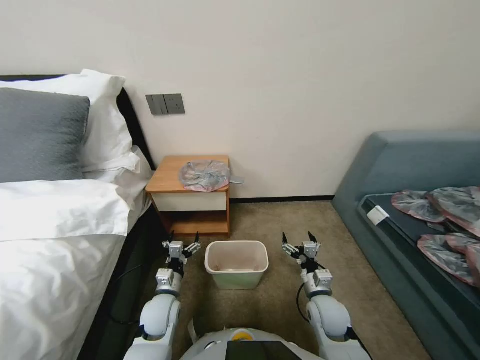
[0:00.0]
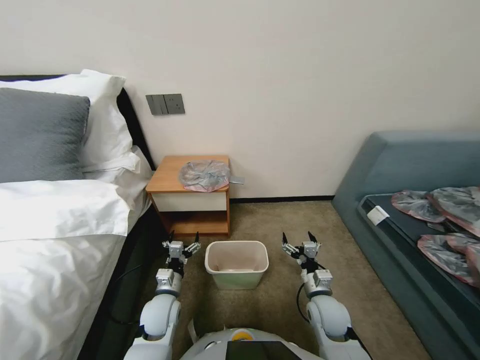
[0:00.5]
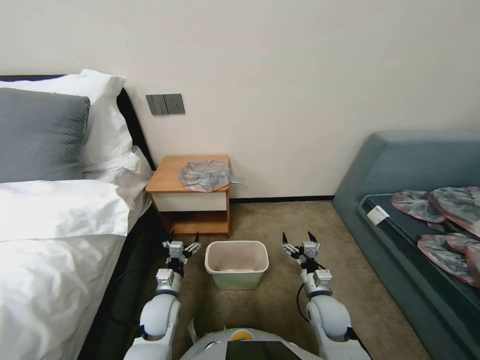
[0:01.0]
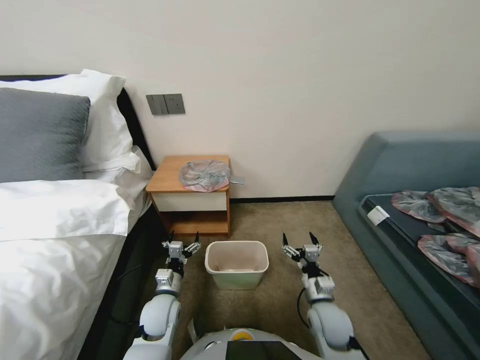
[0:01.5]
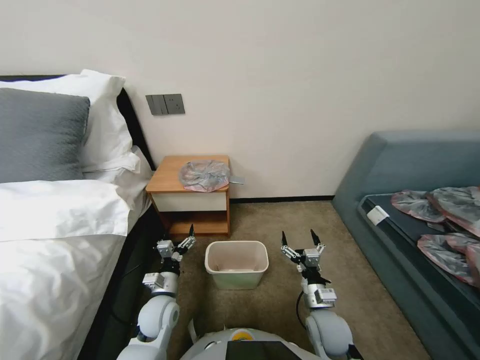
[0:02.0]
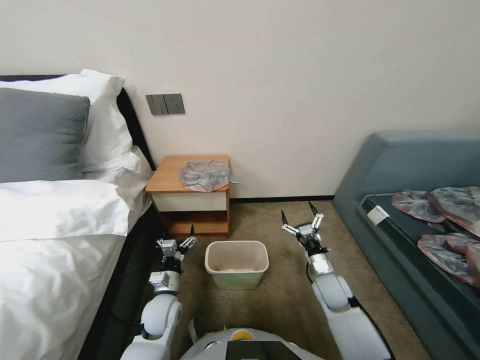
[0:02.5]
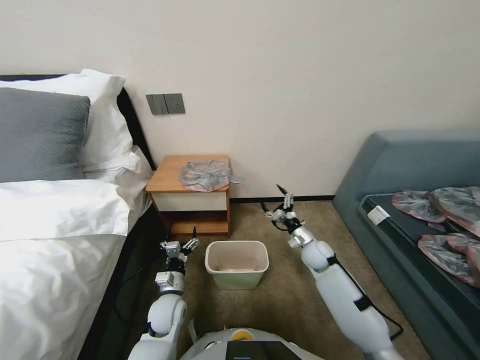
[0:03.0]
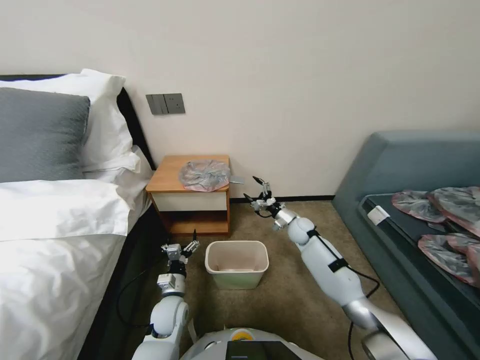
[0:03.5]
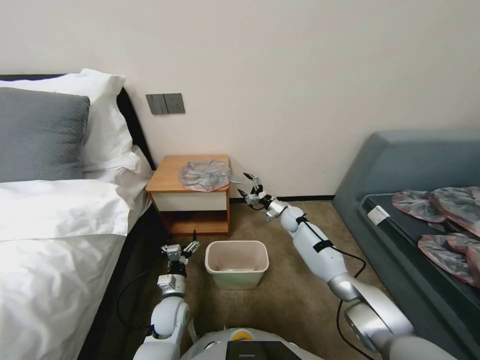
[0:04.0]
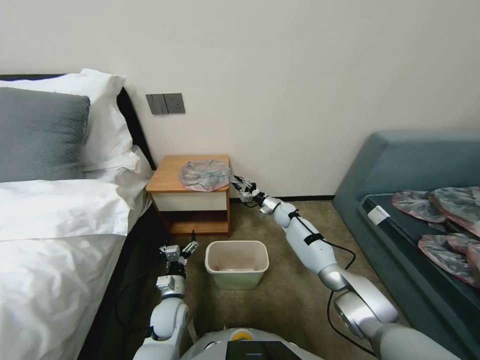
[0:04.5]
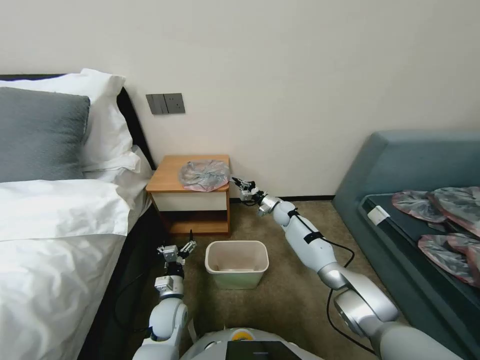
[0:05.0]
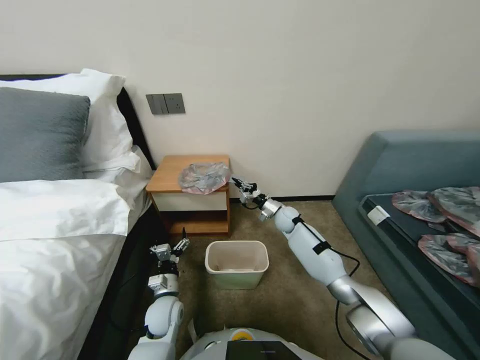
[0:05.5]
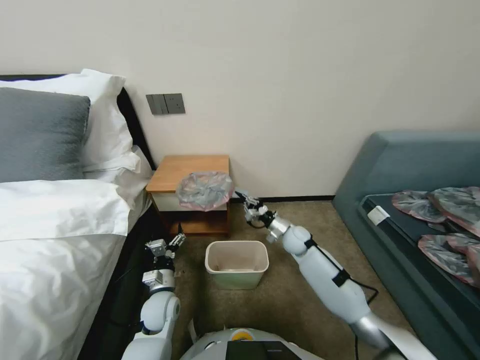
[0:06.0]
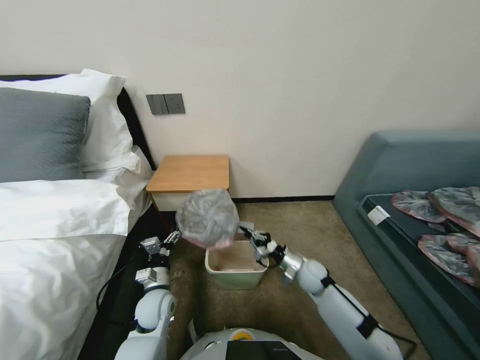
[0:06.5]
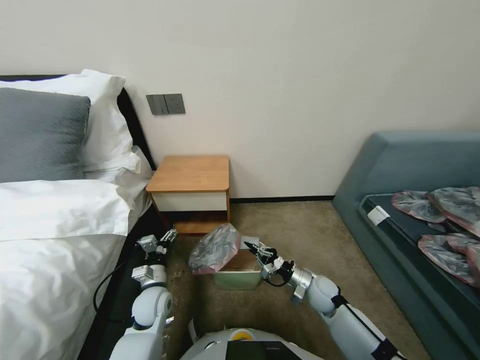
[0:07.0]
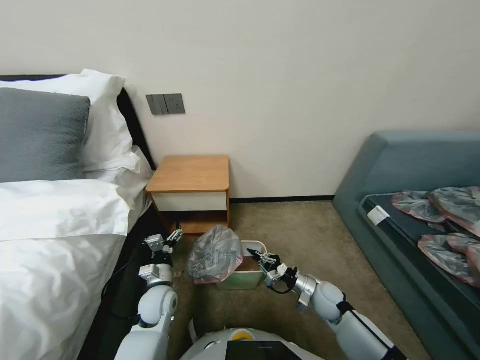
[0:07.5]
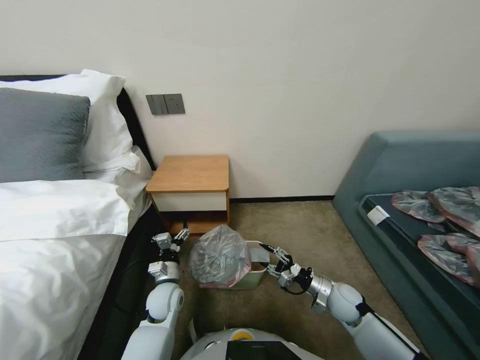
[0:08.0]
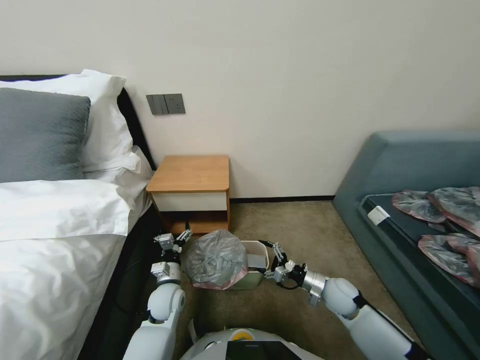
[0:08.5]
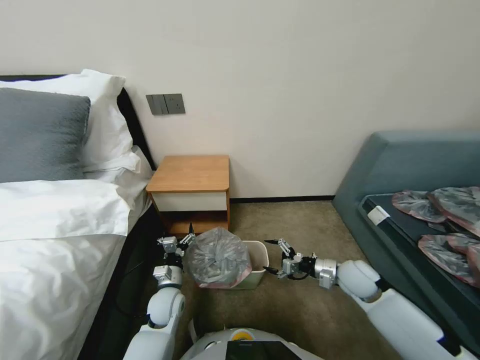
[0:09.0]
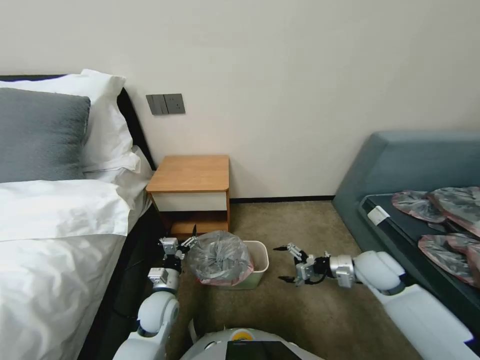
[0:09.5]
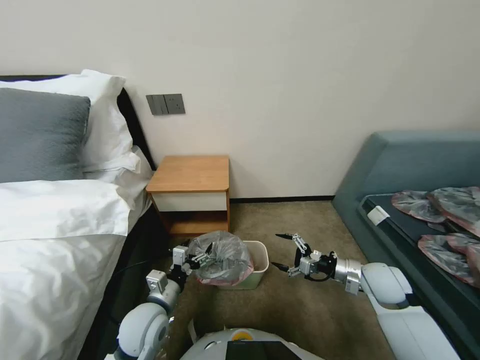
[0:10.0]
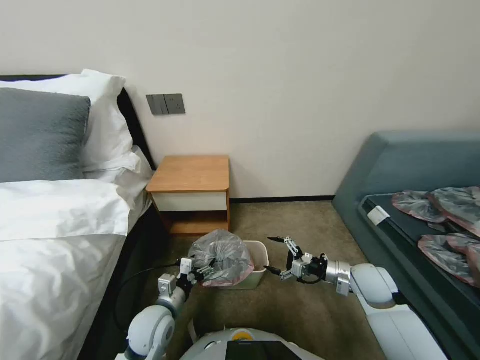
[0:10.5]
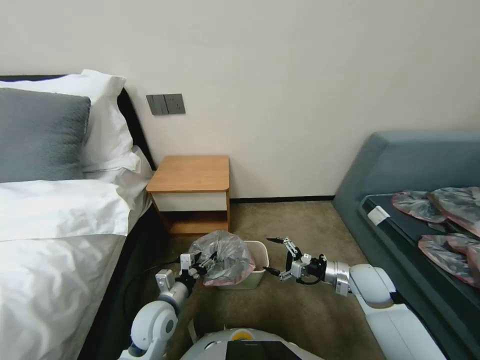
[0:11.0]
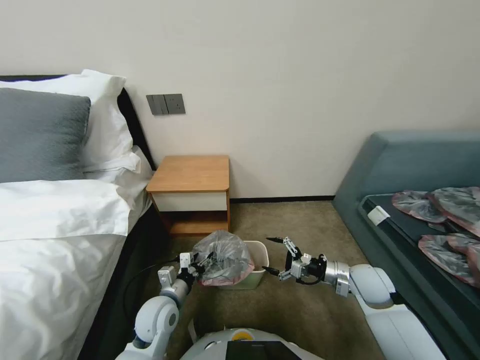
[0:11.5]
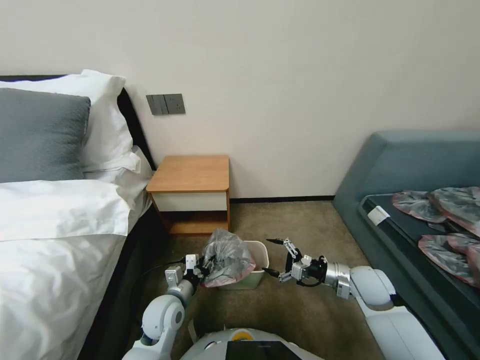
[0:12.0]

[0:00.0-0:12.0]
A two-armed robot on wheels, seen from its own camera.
Task of the whole recording: Pick up the garbage bag from the table and place it over the trash can.
0:02.0 to 0:04.0: The right gripper heads forward, covering some 35 cm.
0:04.0 to 0:06.0: The right gripper travels backward by about 5 cm, and closes up.
0:06.0 to 0:08.0: The right gripper heads backward and to the right, covering some 25 cm, and opens.
0:08.0 to 0:10.0: The right gripper travels upward and to the right by about 15 cm, and opens its fingers. The left gripper travels upward and backward by some 10 cm.
0:10.0 to 0:12.0: The left gripper changes place by some 5 cm, and closes its fingers.

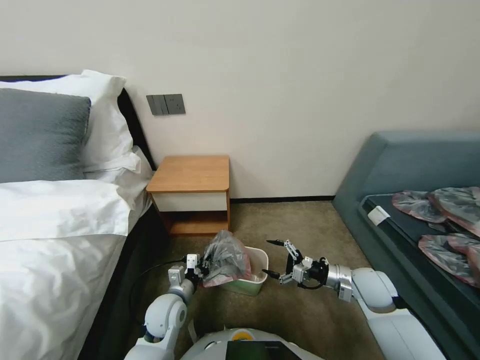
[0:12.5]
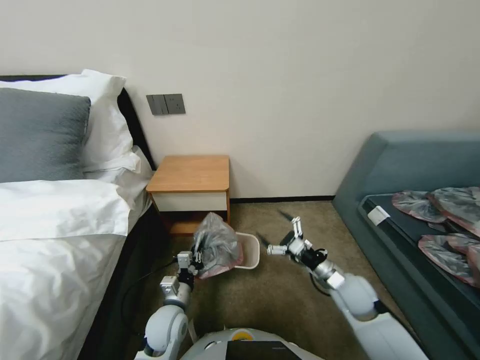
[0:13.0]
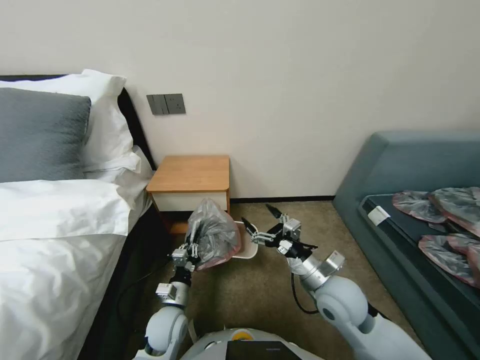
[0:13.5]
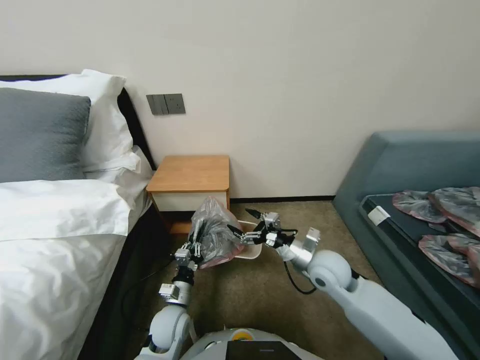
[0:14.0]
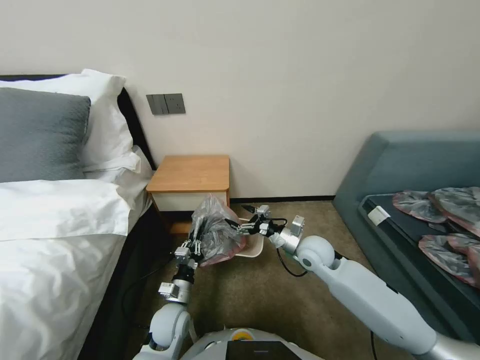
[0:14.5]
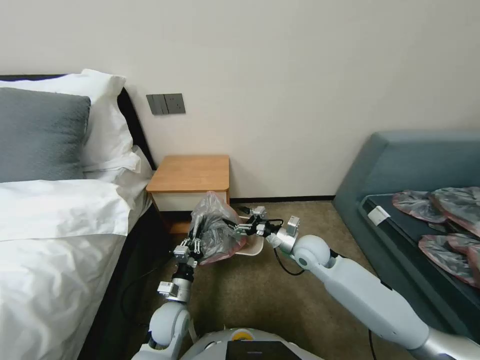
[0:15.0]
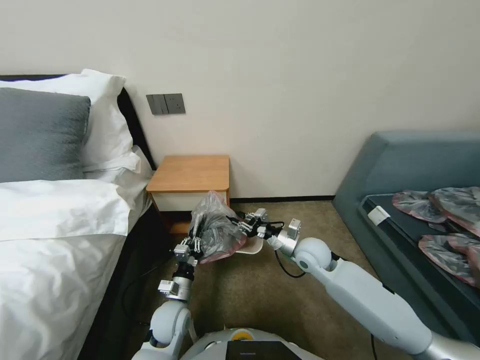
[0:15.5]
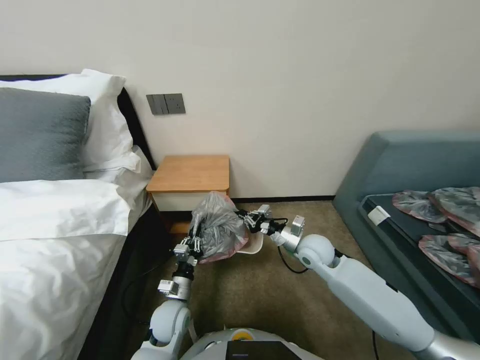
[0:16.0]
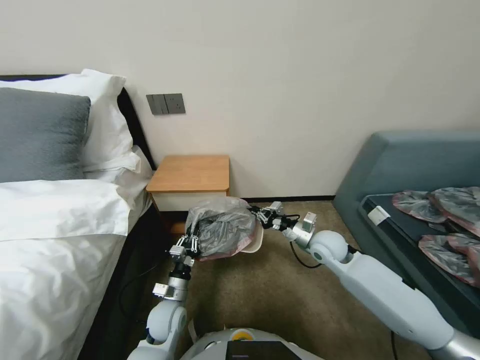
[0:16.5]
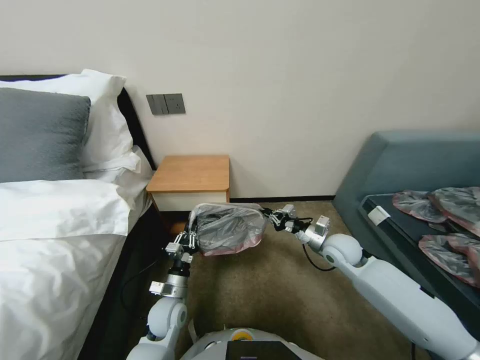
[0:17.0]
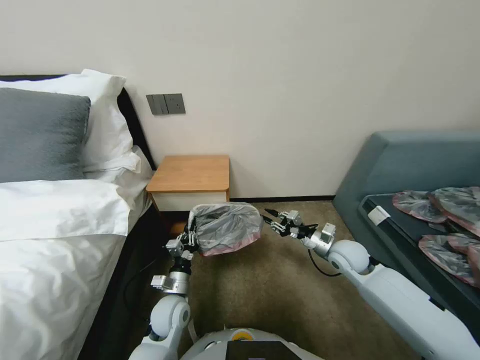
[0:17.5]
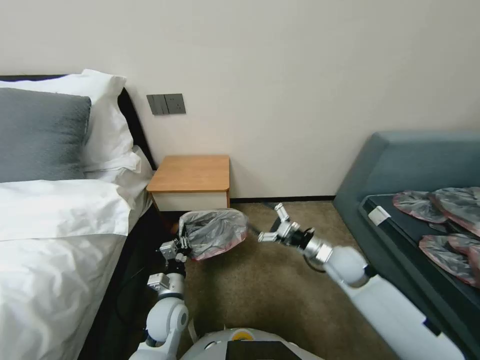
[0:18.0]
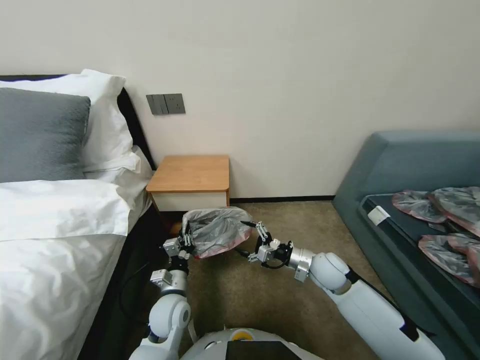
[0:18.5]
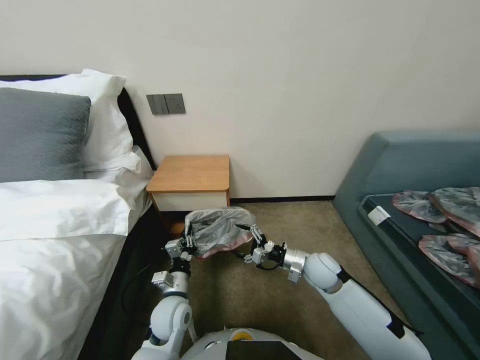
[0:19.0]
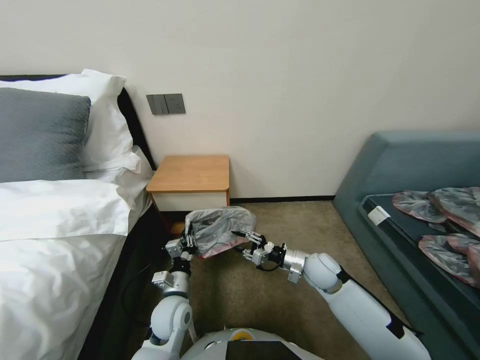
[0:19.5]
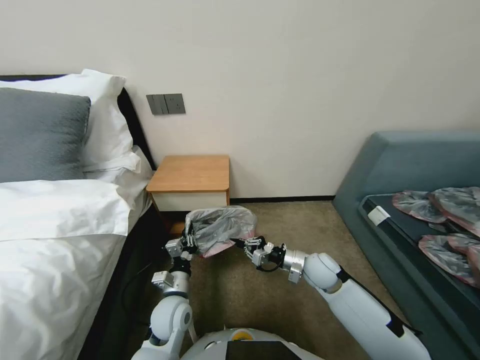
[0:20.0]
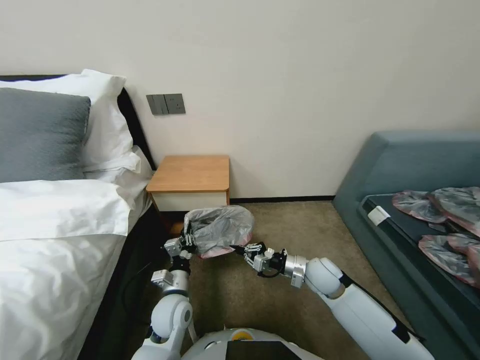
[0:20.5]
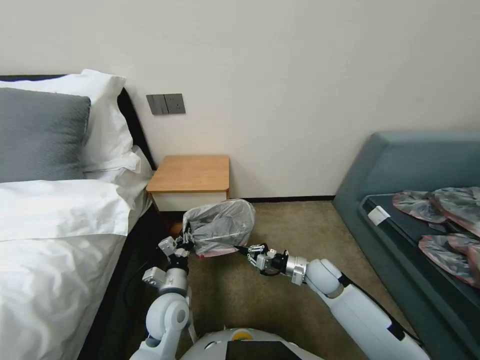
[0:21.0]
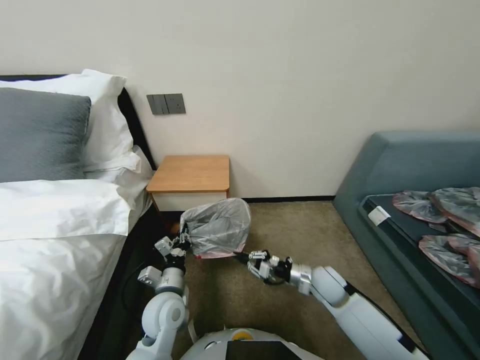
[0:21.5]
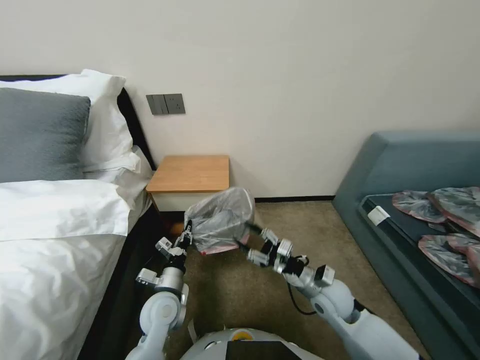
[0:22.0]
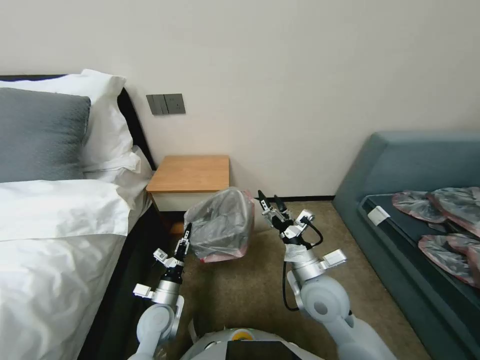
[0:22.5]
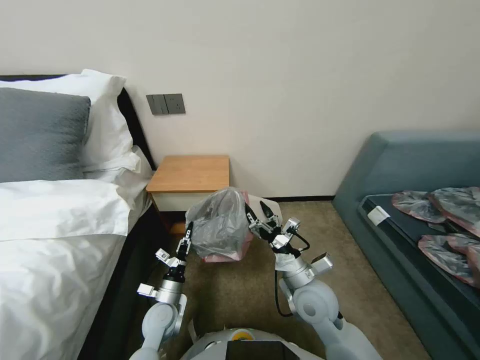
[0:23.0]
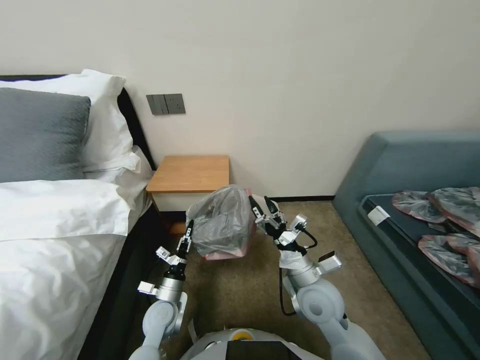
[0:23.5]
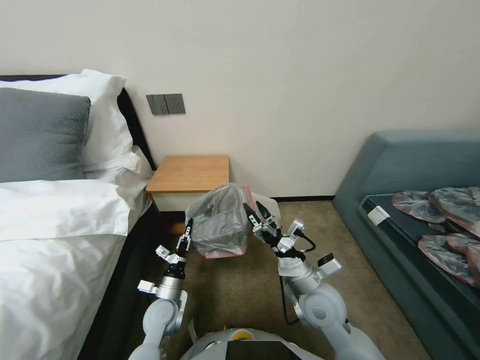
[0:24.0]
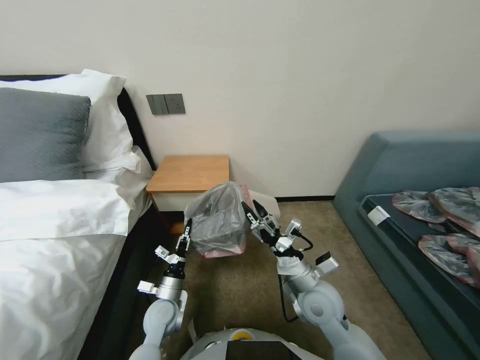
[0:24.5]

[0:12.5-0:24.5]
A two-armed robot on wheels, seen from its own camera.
Task of the whole recording: Pick up the garbage bag from the table and place it over the trash can.
0:12.5 to 0:14.5: The right gripper shifts roughly 15 cm to the left and forward.
0:14.5 to 0:16.5: The right gripper closes up.
0:16.5 to 0:18.5: The right gripper moves backward, about 5 cm, and opens.
0:18.5 to 0:20.5: The right gripper closes up.
0:20.5 to 0:22.5: The right gripper goes about 10 cm upward and backward, and opens its fingers; the left gripper shifts by approximately 5 cm.
0:22.5 to 0:24.5: The grippers stay close to where they were, moving slightly.

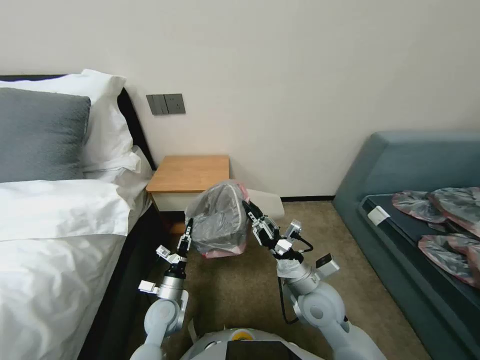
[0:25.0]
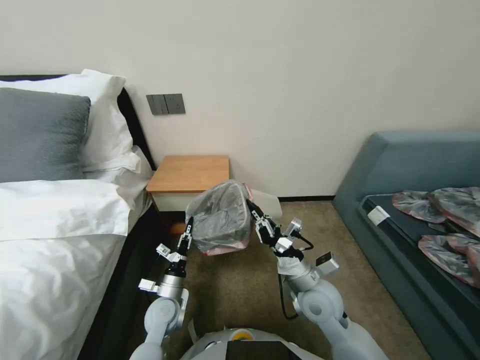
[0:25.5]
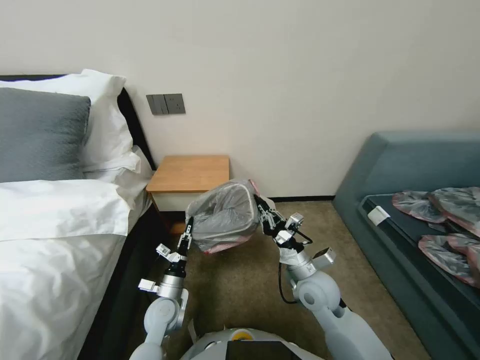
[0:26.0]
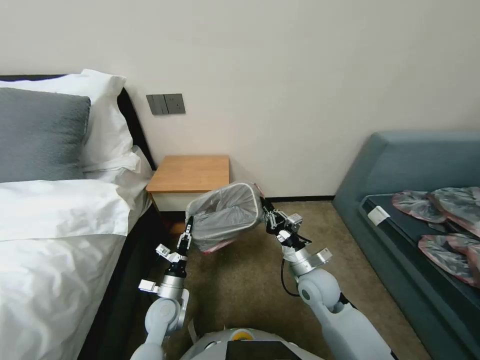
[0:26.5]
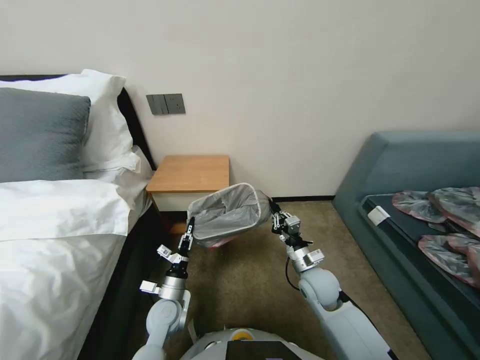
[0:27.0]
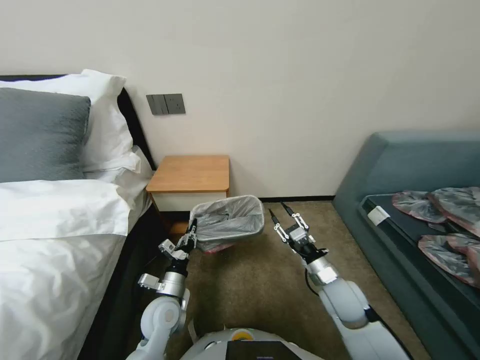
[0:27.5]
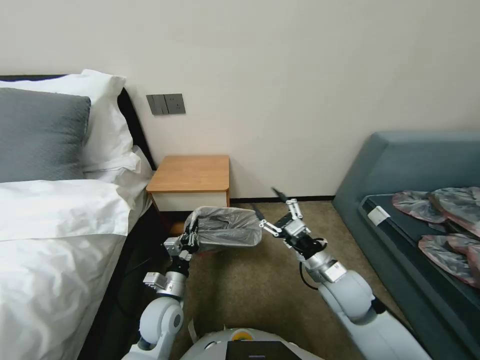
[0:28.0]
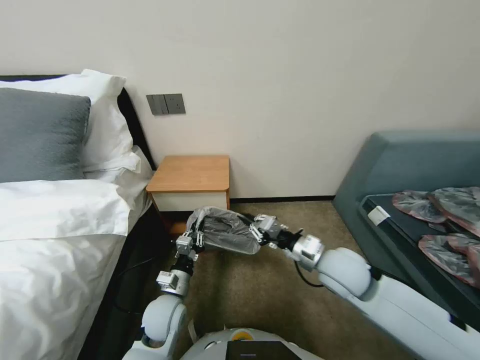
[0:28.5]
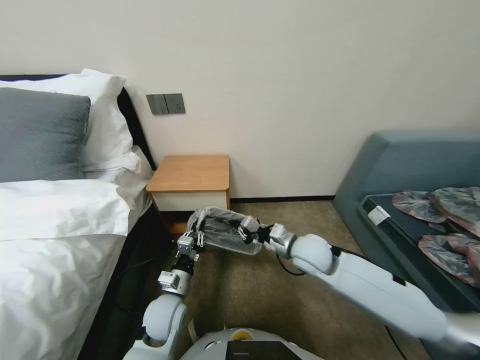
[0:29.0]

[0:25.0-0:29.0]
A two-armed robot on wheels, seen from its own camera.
Task of the whole recording: Pick up the garbage bag from the table and place it over the trash can.
0:25.0 to 0:27.0: The right gripper moves forward and downward, about 5 cm.
0:27.0 to 0:29.0: The left gripper shifts about 5 cm upward; the right gripper heads upward, covering some 10 cm, and opens, then closes again.
